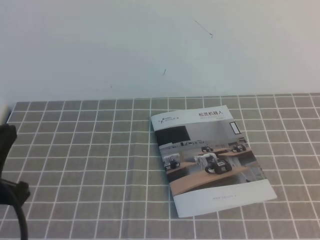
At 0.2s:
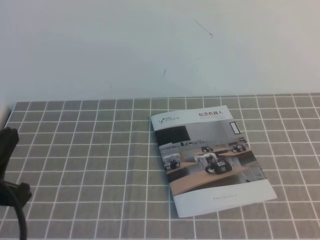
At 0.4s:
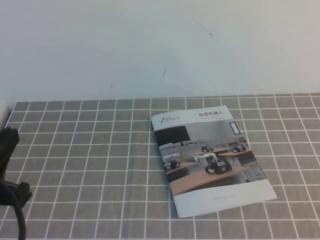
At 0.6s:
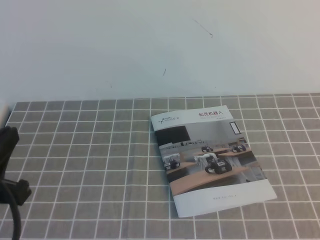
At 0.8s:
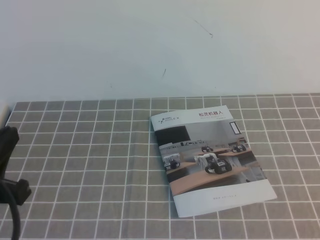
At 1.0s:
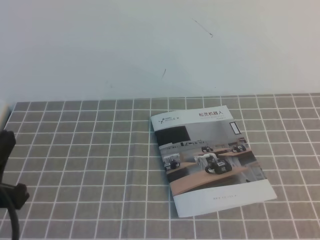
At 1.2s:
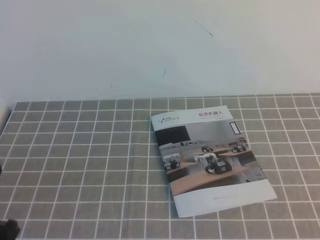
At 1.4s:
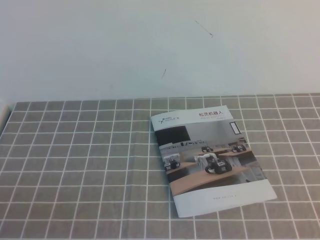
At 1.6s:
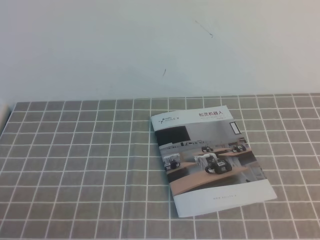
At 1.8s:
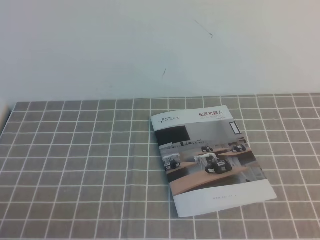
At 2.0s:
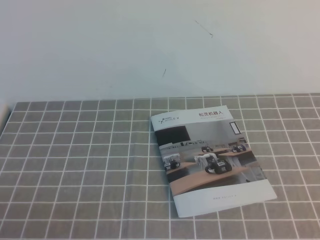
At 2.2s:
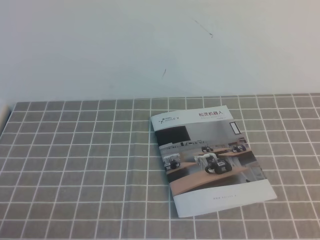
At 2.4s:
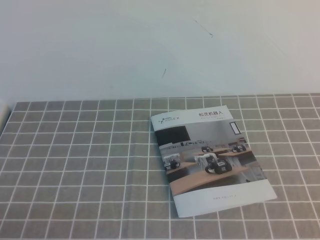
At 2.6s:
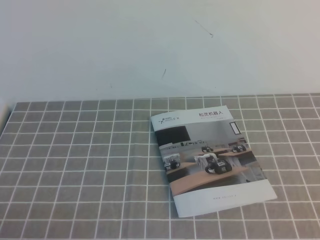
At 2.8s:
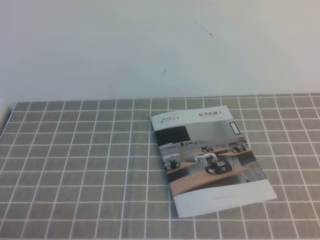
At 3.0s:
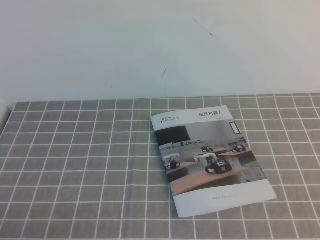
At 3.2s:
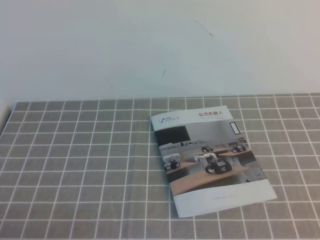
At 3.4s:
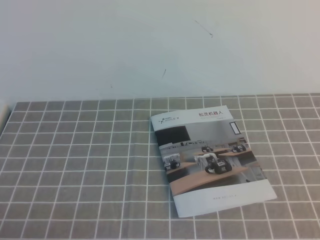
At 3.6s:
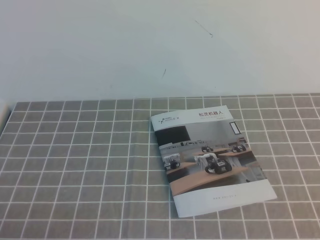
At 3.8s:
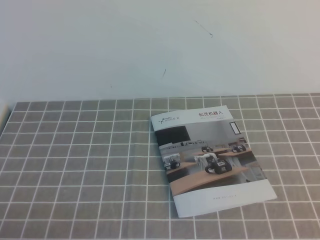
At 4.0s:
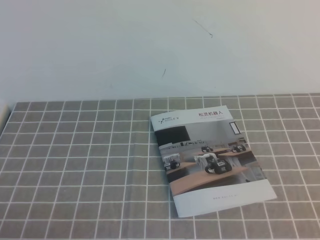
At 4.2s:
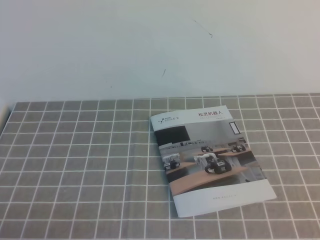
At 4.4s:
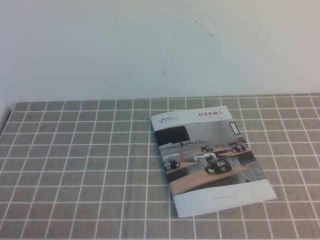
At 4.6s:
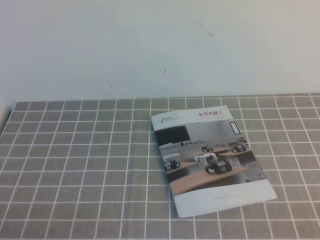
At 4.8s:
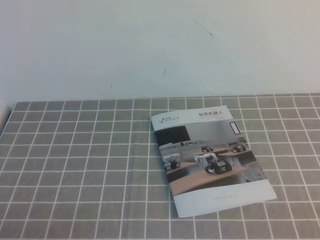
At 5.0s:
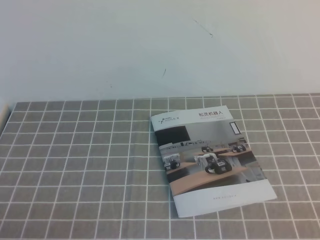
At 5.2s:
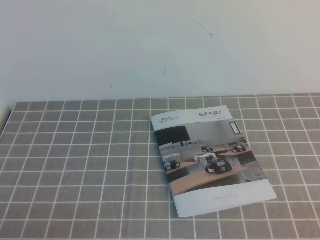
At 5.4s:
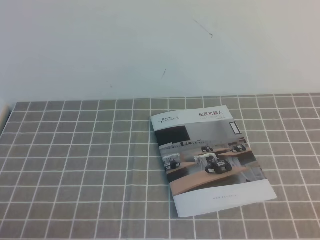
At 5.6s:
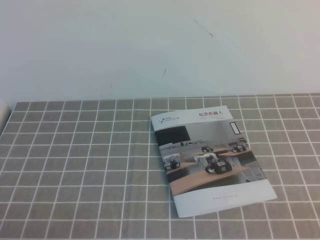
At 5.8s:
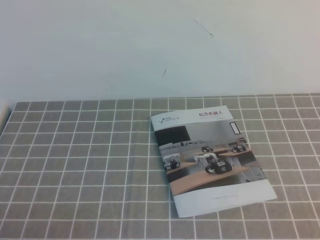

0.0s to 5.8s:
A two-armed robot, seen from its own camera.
Task of the whole recording: on the grey tablecloth, hold the book with one hand and close it with the other.
Step, 0.0s to 5.8s: Close the open book.
0.0s to 1.4s: The left gripper shifts some 10 cm downward and backward.

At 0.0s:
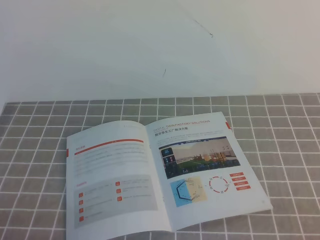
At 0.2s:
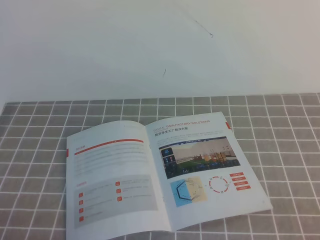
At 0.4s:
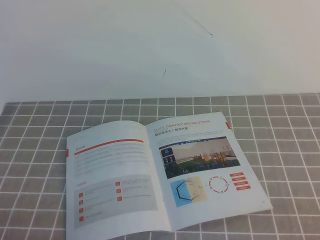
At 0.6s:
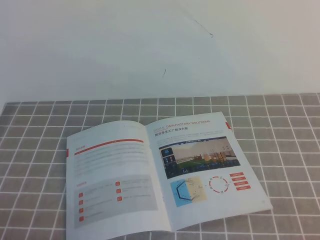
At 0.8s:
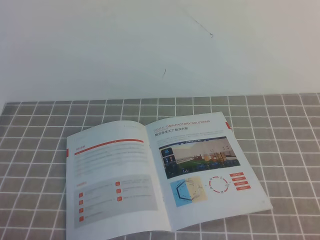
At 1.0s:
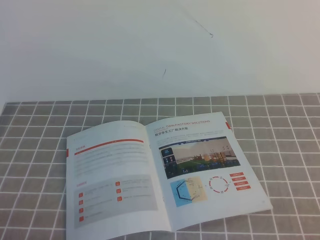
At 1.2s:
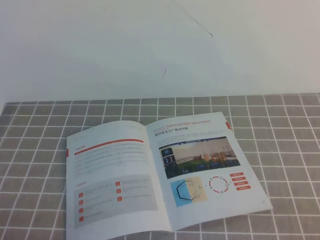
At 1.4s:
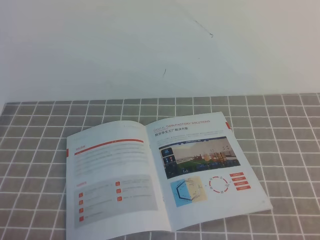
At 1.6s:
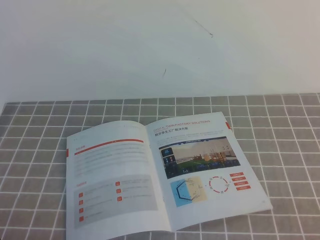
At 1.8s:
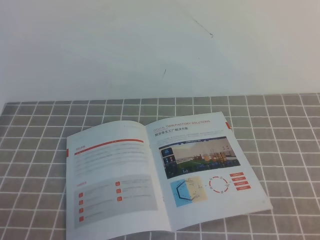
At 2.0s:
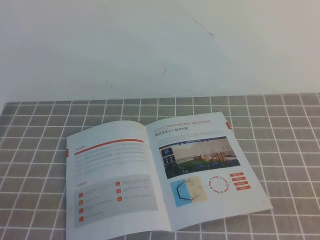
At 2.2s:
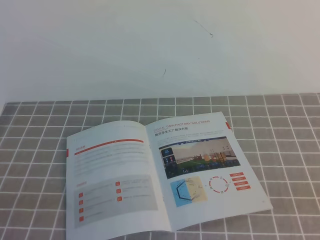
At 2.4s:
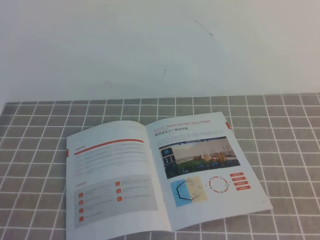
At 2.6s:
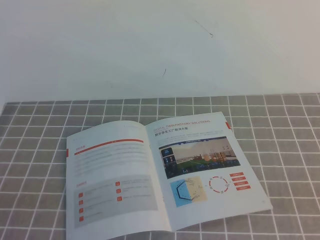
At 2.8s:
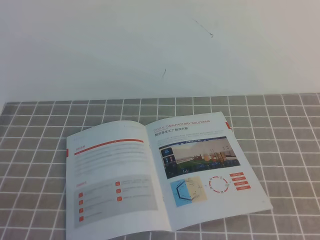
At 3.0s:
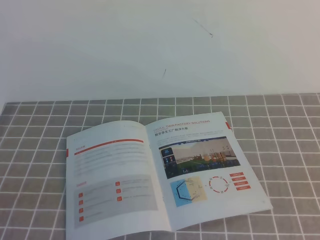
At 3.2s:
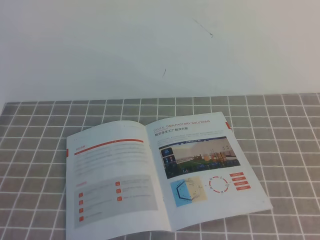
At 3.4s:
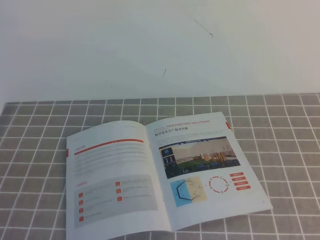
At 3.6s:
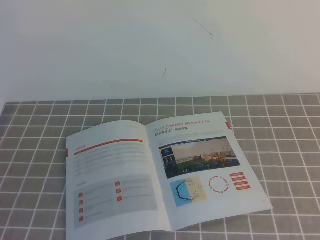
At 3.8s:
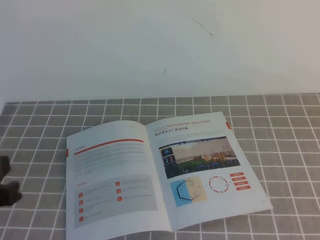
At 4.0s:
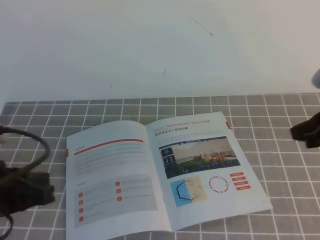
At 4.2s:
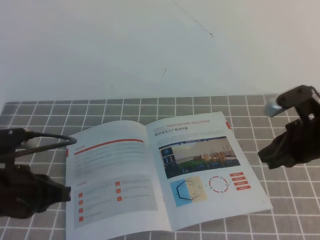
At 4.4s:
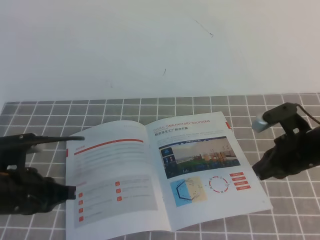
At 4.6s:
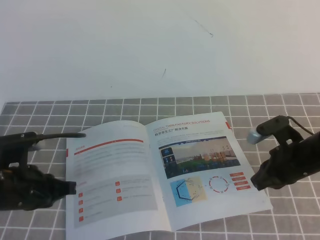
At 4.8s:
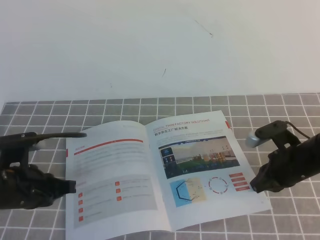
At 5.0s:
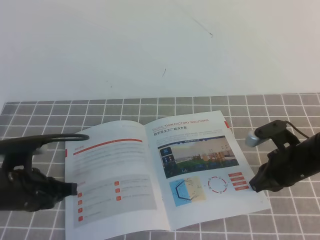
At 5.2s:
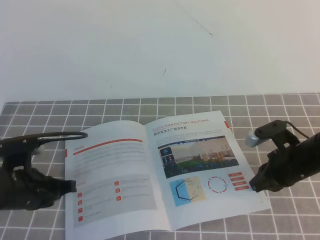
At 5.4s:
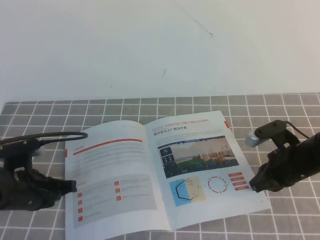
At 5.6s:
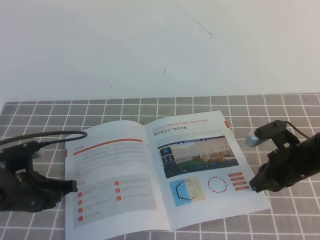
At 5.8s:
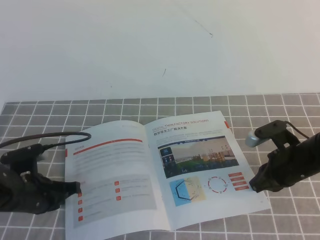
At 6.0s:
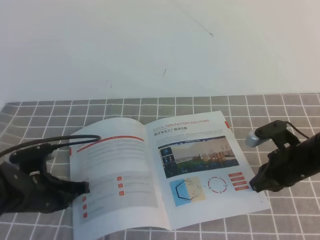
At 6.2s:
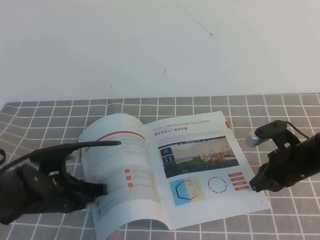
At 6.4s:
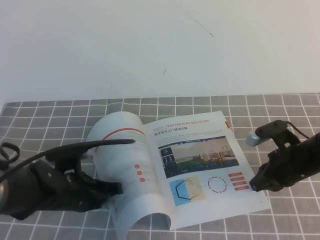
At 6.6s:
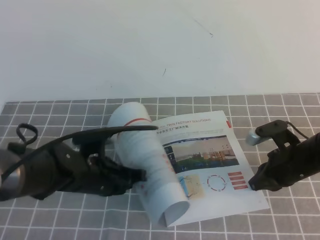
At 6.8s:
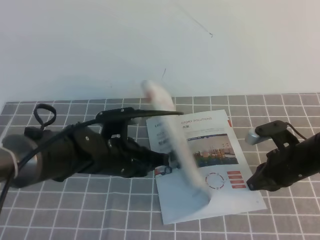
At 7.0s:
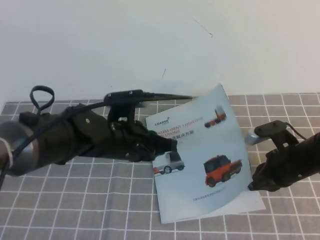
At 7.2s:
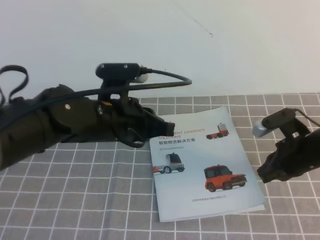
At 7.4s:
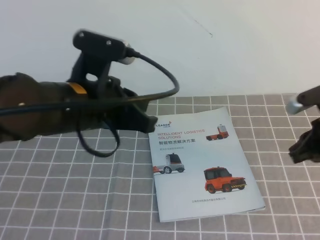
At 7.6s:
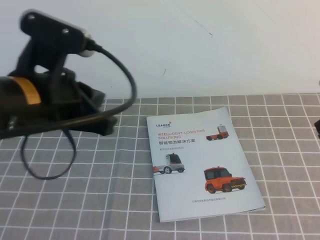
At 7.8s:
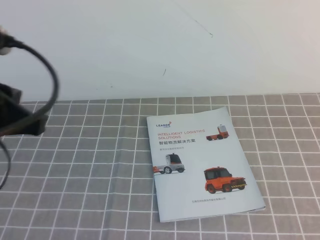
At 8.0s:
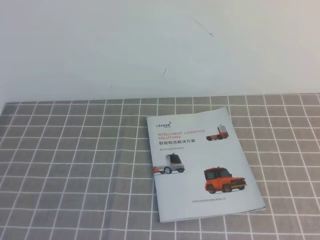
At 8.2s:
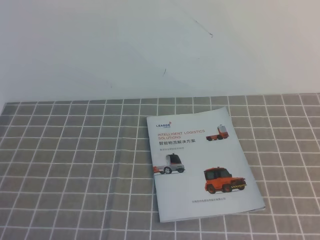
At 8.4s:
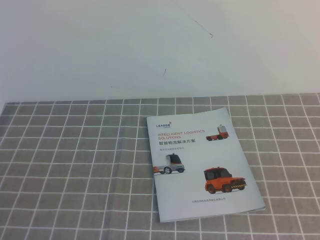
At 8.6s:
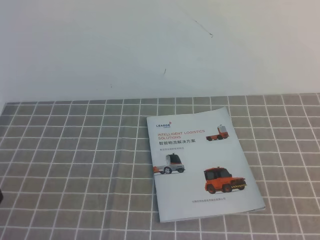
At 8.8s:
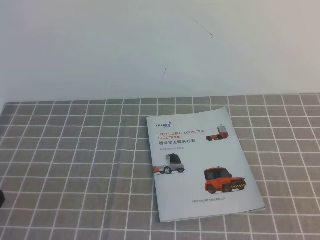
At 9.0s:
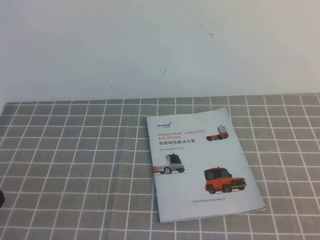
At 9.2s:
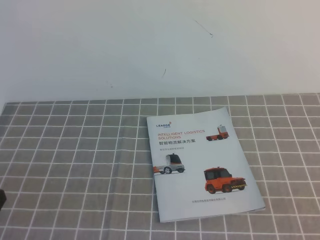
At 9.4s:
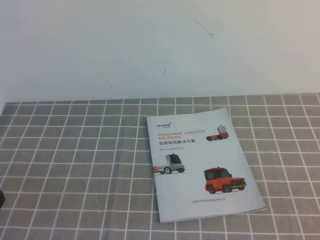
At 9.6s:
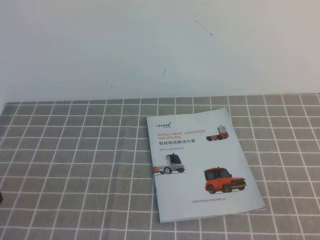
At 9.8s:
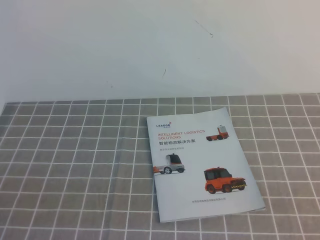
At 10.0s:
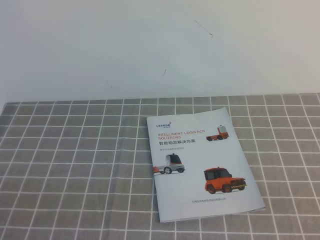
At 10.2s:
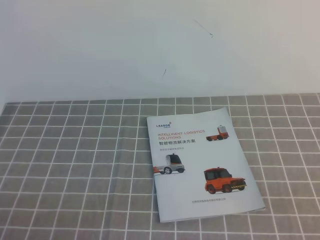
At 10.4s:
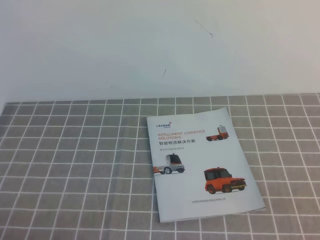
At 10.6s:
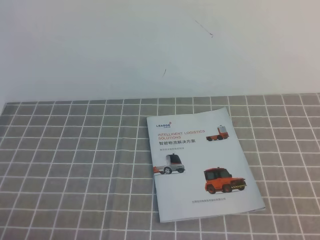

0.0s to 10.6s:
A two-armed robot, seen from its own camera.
Task of the whole recording: on the grey tablecloth, hold the book with one hand and close it with the other.
3.0s to 4.6s: The right gripper is displaced forward and downward by some 30 cm, while the left gripper goes approximately 20 cm forward.
4.6s to 6.0s: The left gripper is displaced downward by about 5 cm.
6.0s to 7.6s: The left gripper moves upward, roughly 25 cm. The right gripper shifts roughly 15 cm upward.
7.6s to 9.0s: The right gripper shifts roughly 25 cm backward; the left gripper goes roughly 20 cm backward, to the left and downward.

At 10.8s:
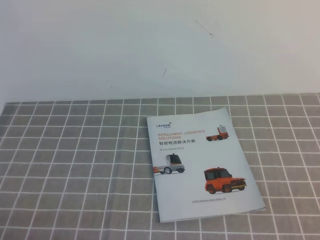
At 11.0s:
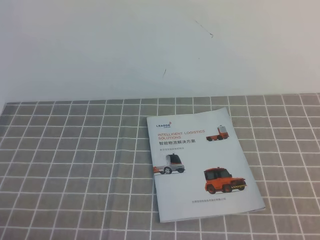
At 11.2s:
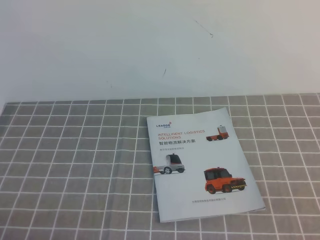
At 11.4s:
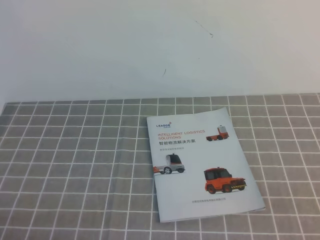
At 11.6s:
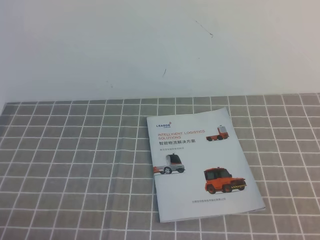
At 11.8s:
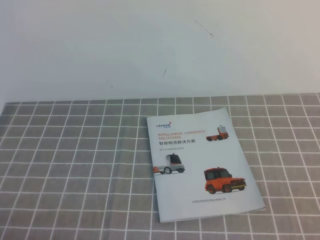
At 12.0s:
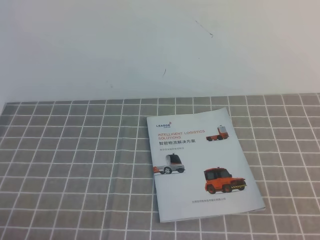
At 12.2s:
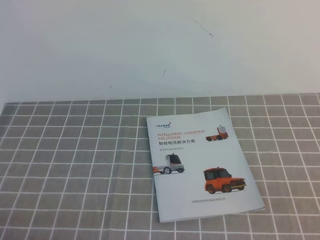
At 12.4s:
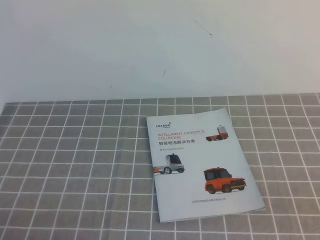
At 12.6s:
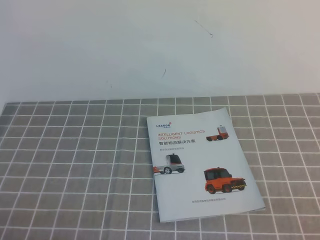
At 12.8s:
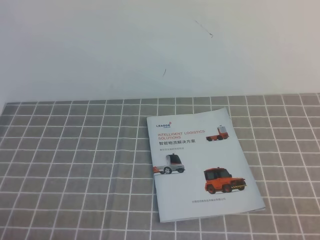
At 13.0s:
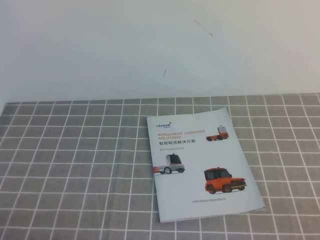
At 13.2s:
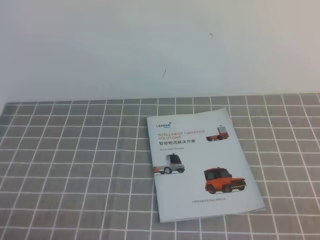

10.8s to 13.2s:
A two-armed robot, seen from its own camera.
Task of the whole recording: on the grey tablecloth, hold the book with one hand and close it with the other.
10.8s to 12.0s: Both grippers stay put.
